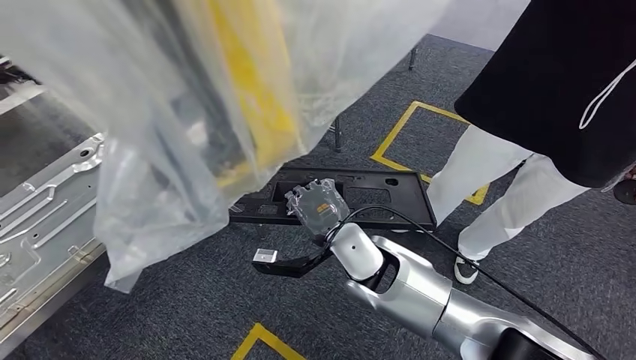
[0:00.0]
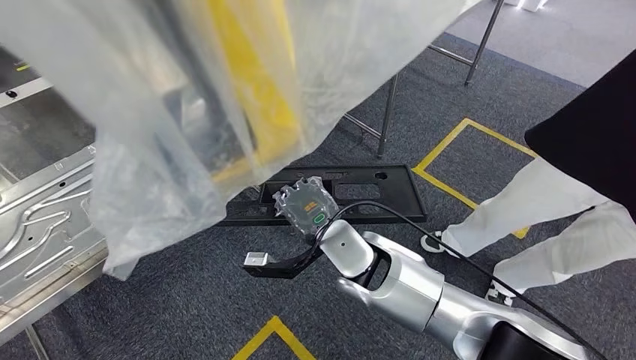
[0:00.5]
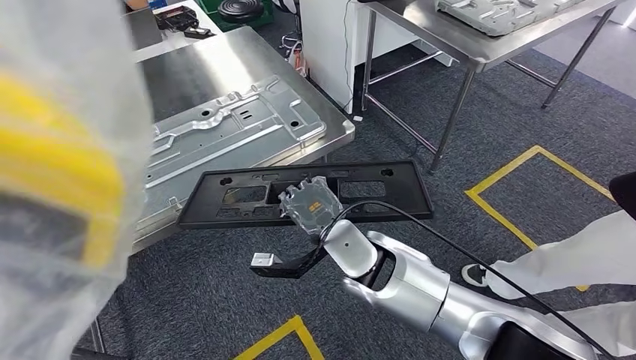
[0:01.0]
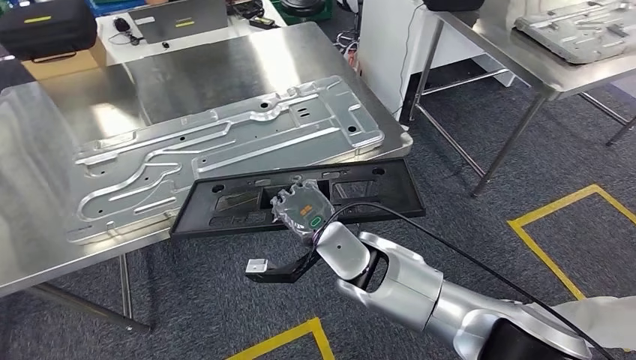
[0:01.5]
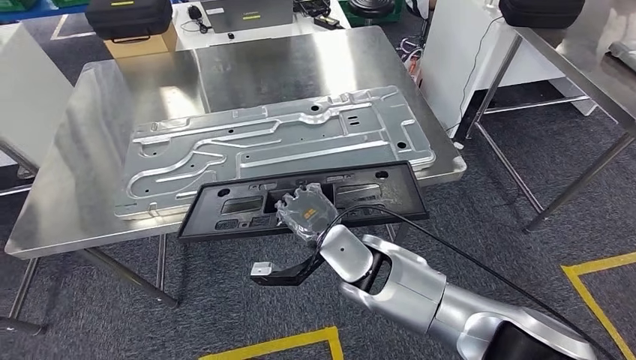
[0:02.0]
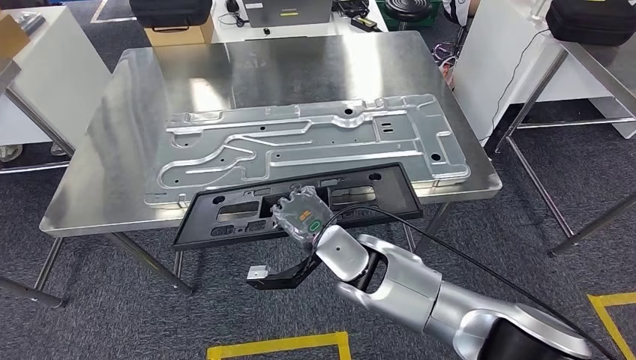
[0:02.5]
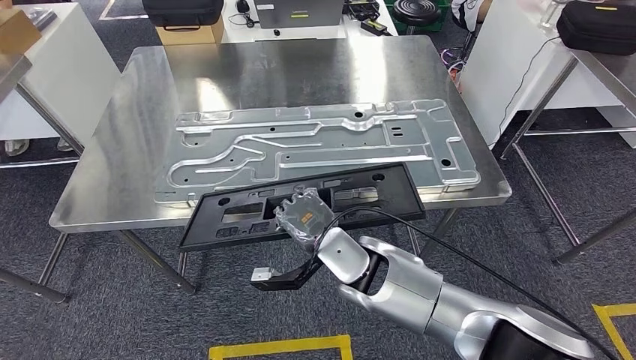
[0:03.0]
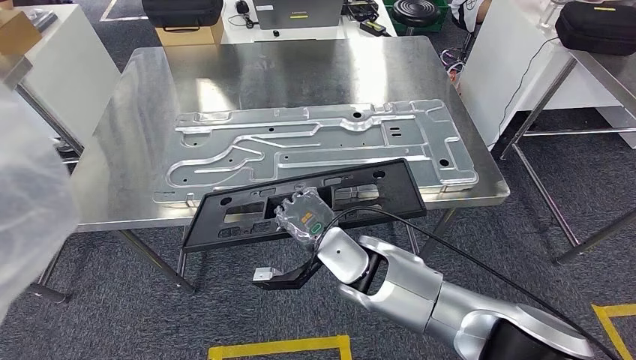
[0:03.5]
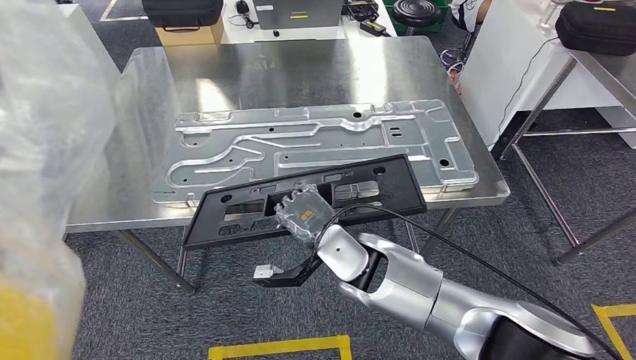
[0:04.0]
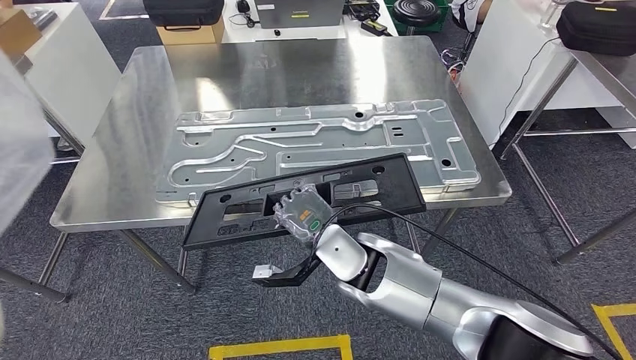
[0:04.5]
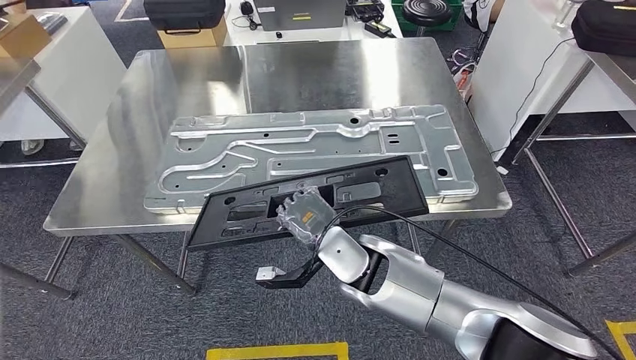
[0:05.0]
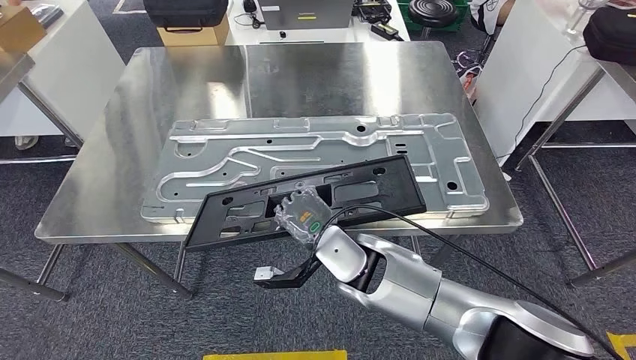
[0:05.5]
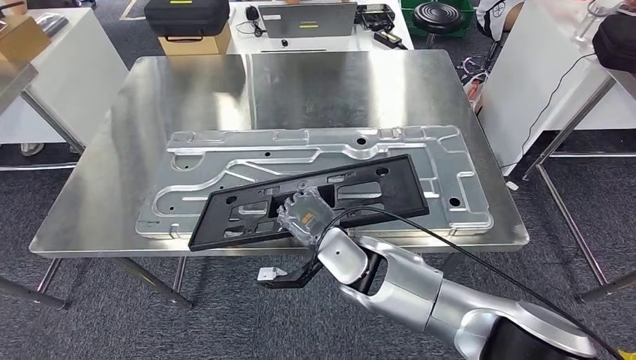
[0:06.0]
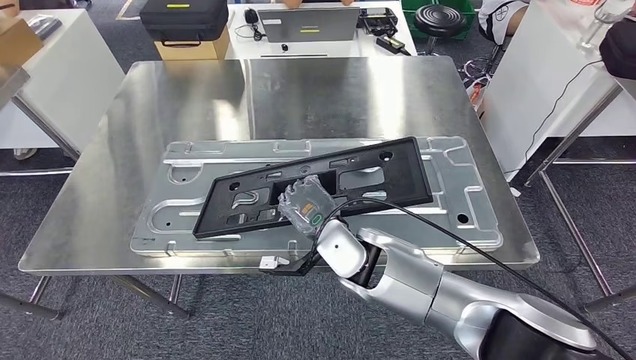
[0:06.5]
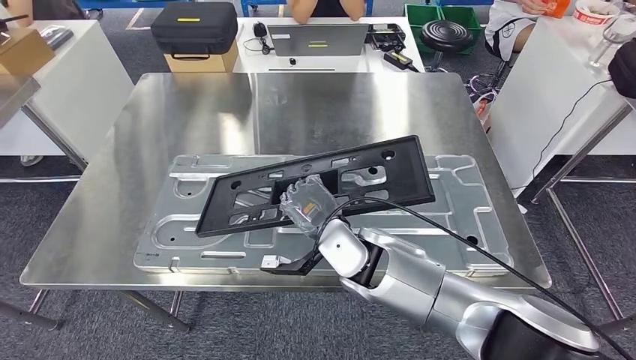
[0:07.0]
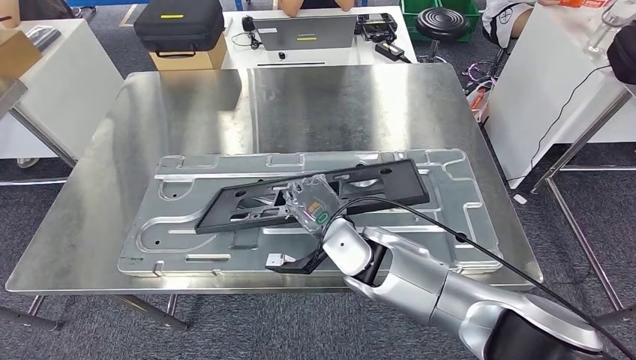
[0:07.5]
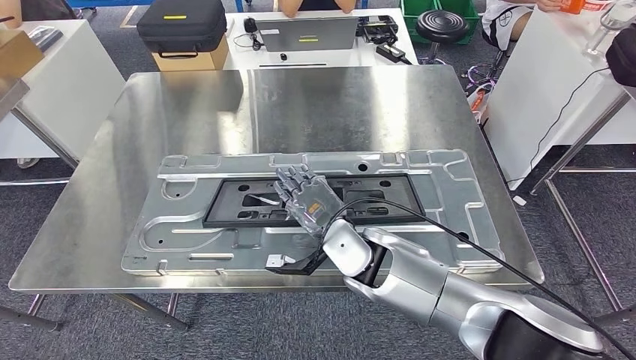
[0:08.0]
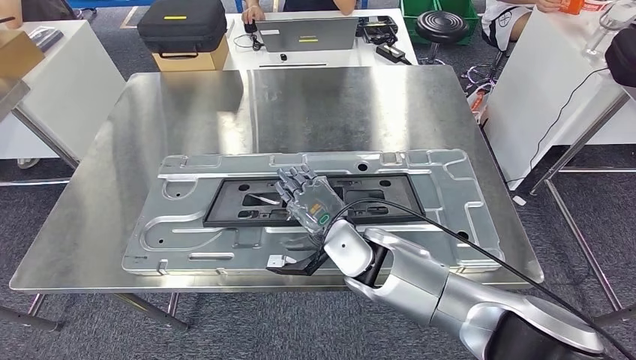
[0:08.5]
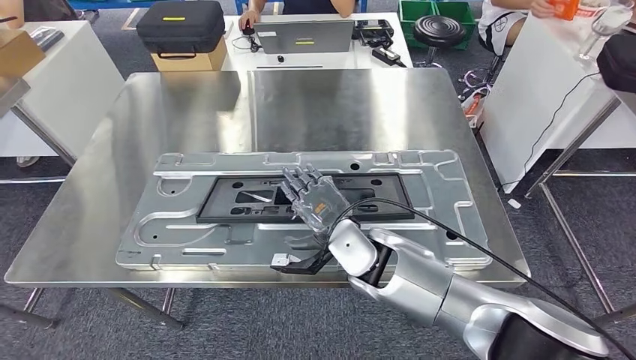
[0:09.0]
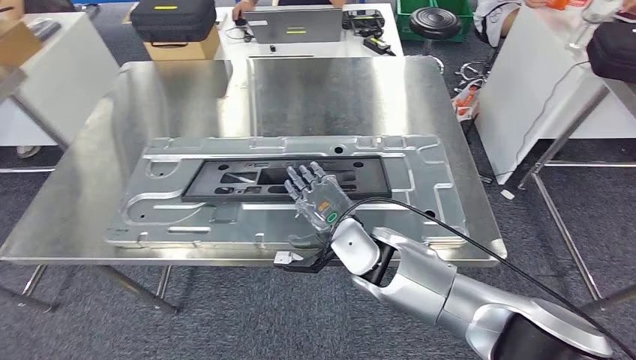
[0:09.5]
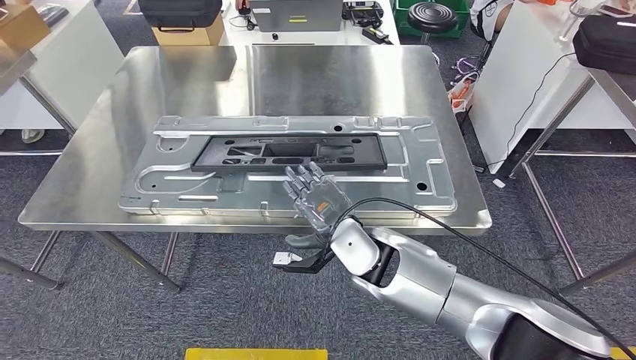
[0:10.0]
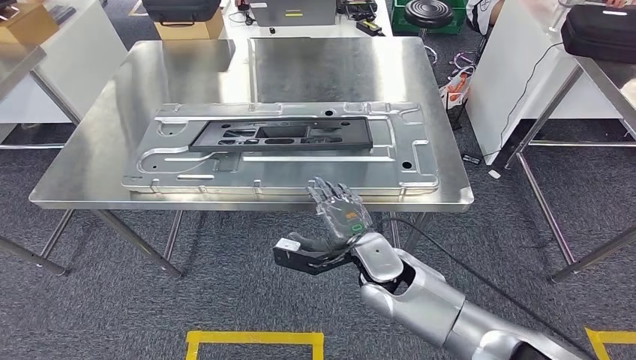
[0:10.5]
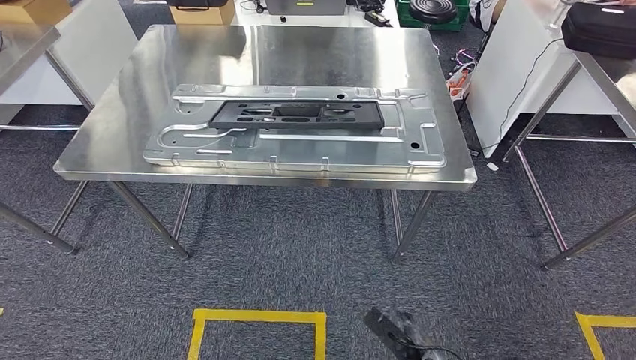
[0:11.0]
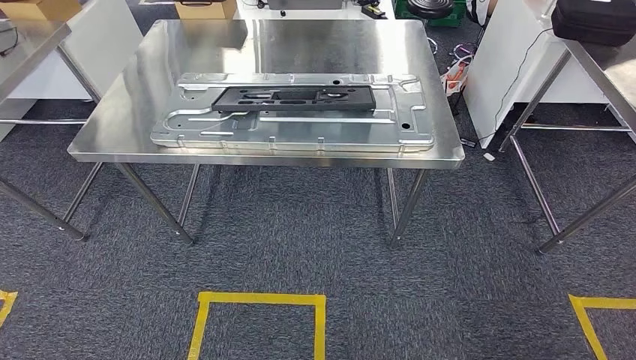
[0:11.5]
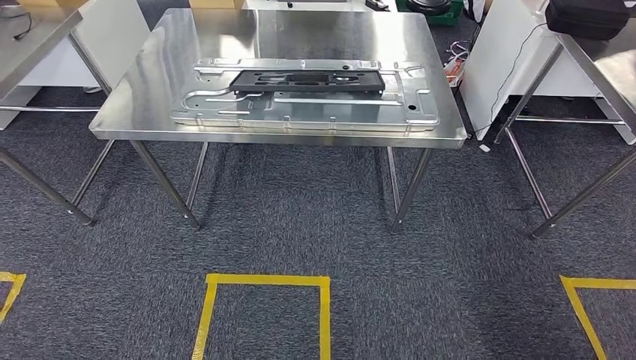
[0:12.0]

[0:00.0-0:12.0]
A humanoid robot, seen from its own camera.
Step, 0:00.0 to 0:02.0: Move the large material to the workbench.
Step, 0:03.0 to 0:09.0: Insert the large material into the corresponding slot on the workbench.

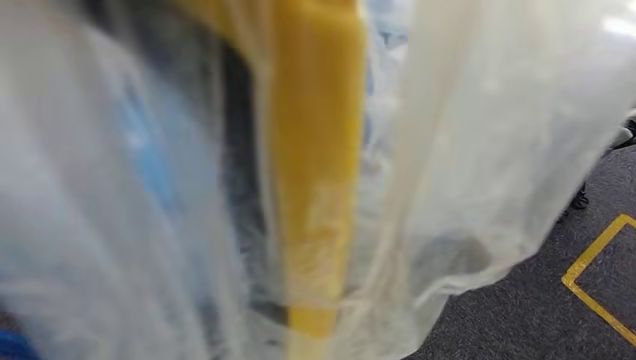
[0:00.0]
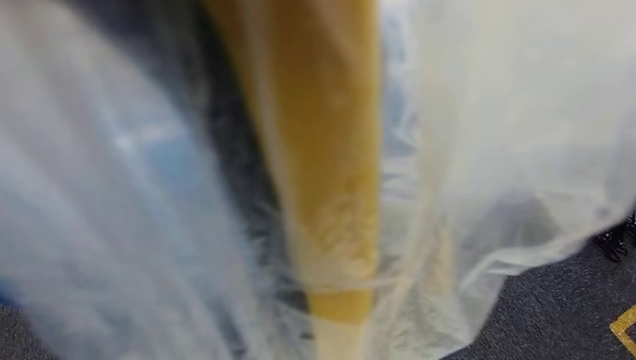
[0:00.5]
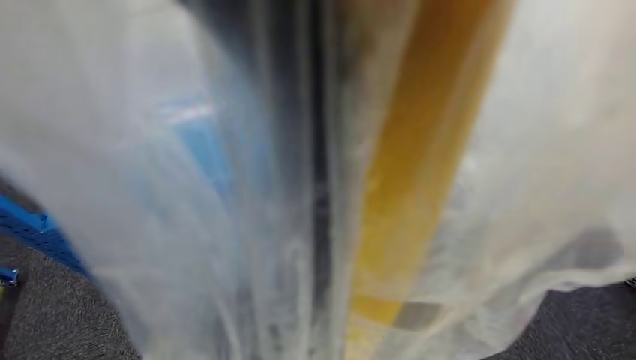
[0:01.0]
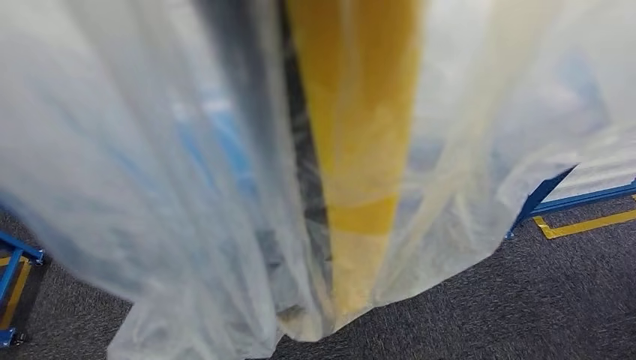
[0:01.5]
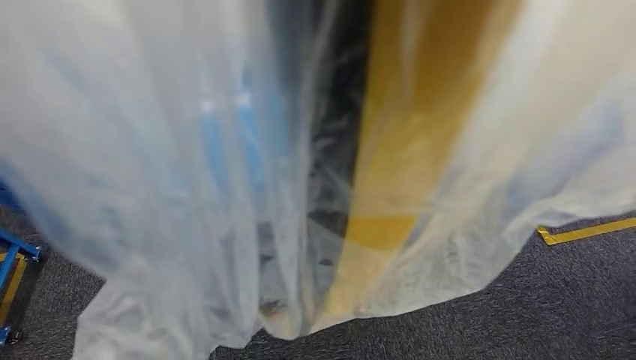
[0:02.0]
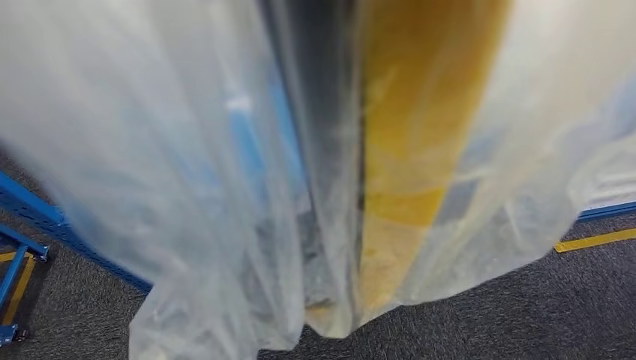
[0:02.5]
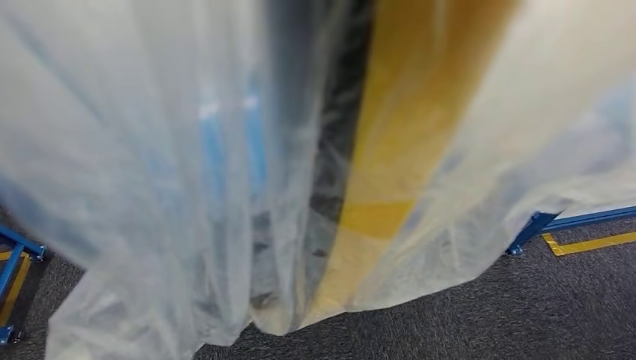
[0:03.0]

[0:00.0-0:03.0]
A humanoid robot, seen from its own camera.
Step, 0:00.0 to 0:03.0: Return to the initial position at the shelf.
